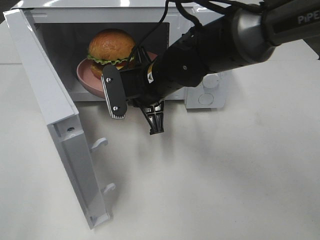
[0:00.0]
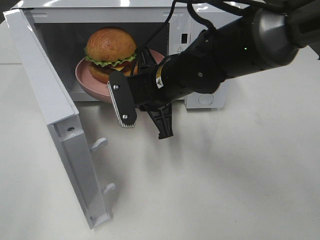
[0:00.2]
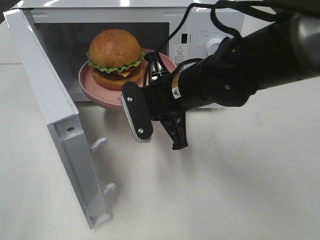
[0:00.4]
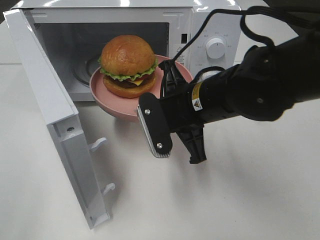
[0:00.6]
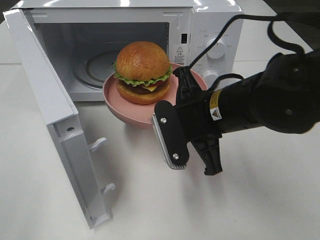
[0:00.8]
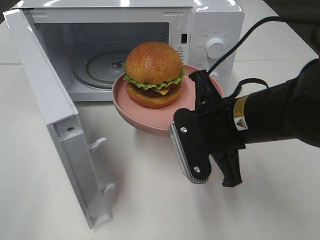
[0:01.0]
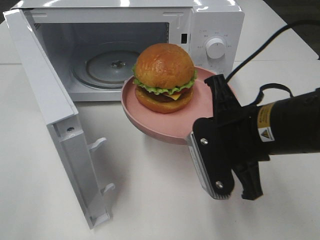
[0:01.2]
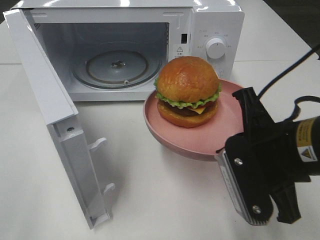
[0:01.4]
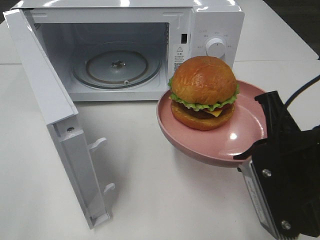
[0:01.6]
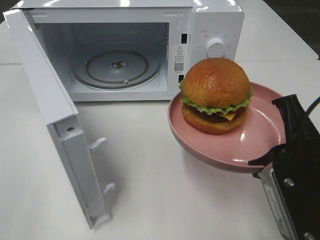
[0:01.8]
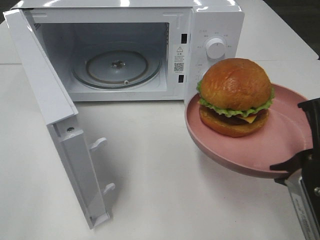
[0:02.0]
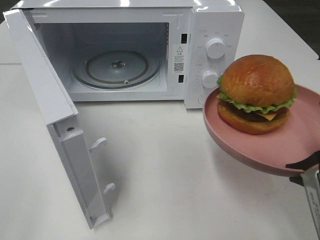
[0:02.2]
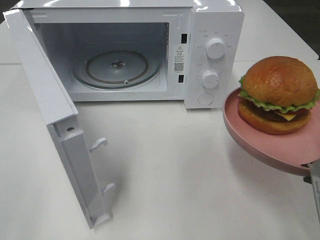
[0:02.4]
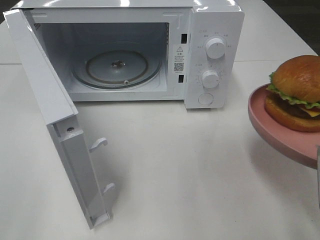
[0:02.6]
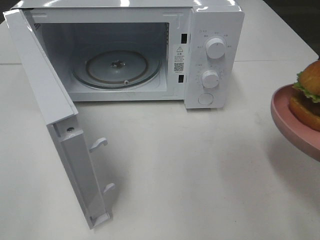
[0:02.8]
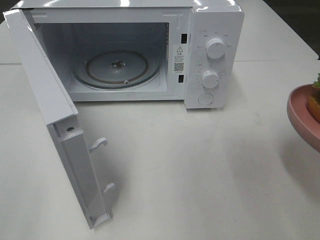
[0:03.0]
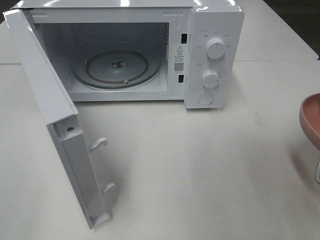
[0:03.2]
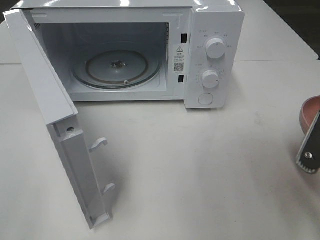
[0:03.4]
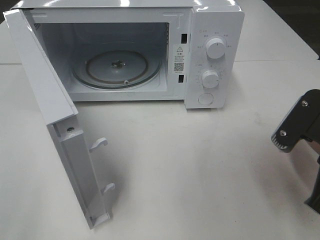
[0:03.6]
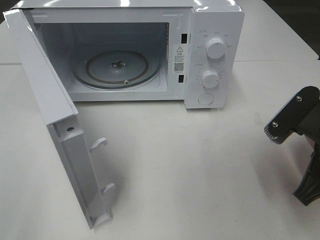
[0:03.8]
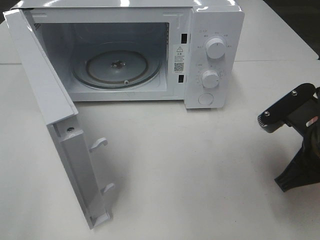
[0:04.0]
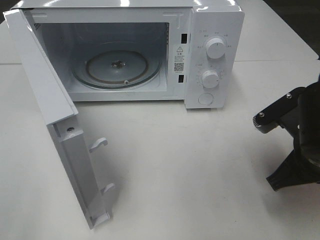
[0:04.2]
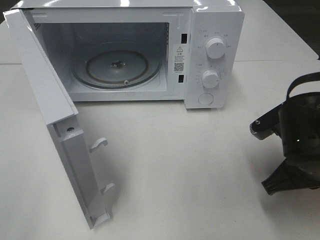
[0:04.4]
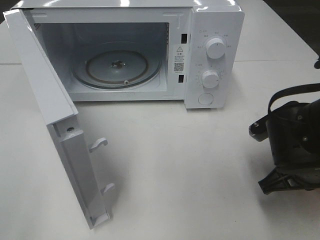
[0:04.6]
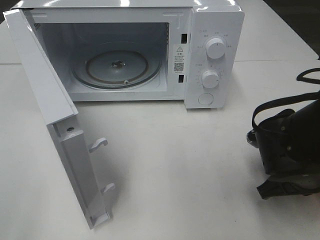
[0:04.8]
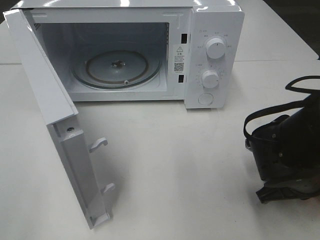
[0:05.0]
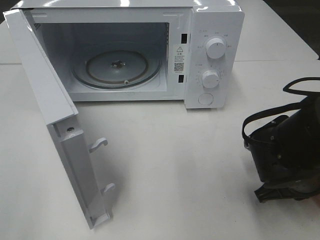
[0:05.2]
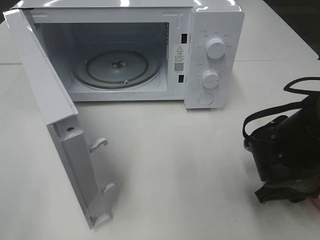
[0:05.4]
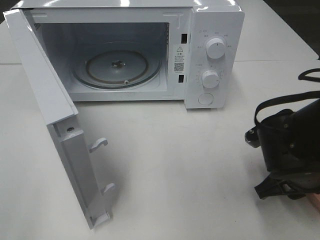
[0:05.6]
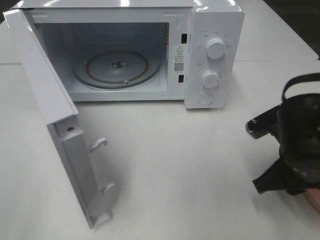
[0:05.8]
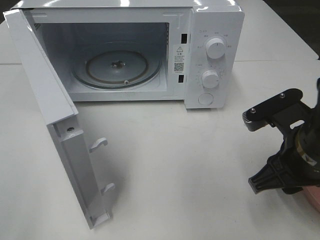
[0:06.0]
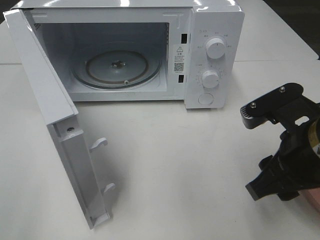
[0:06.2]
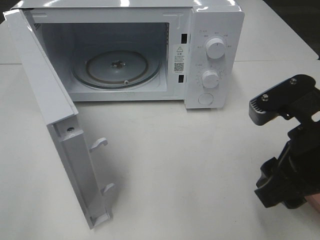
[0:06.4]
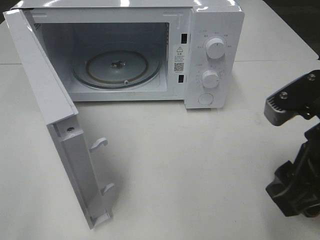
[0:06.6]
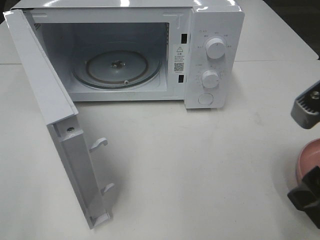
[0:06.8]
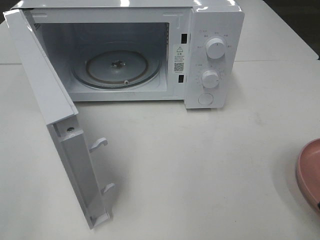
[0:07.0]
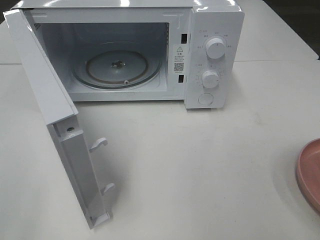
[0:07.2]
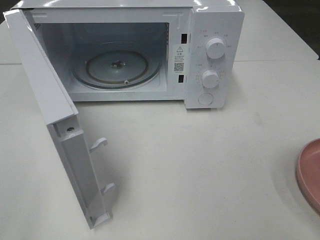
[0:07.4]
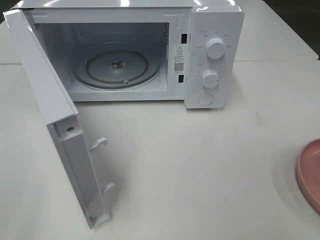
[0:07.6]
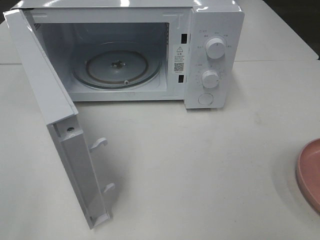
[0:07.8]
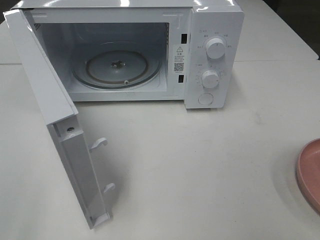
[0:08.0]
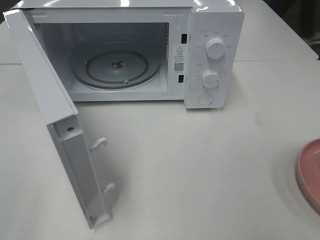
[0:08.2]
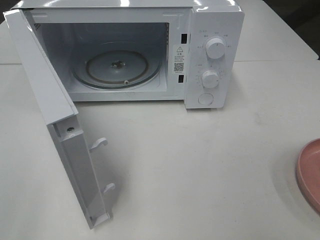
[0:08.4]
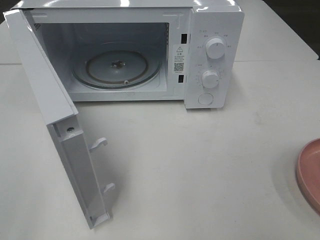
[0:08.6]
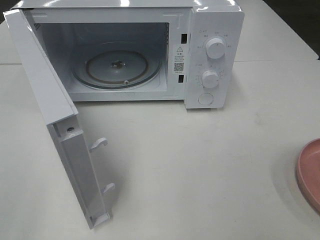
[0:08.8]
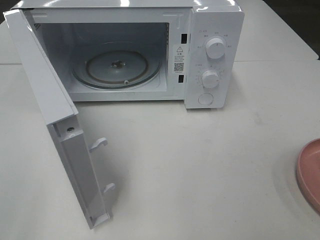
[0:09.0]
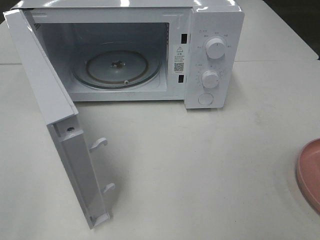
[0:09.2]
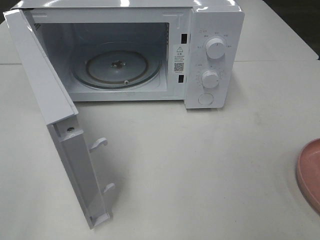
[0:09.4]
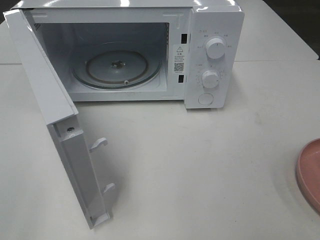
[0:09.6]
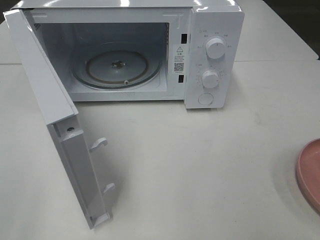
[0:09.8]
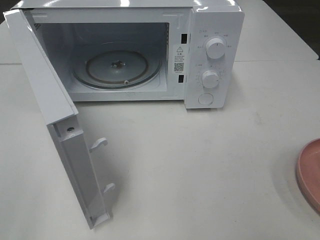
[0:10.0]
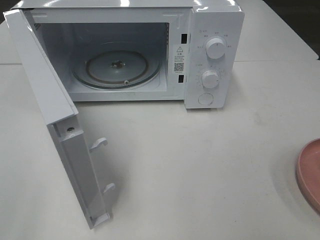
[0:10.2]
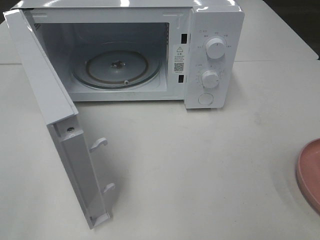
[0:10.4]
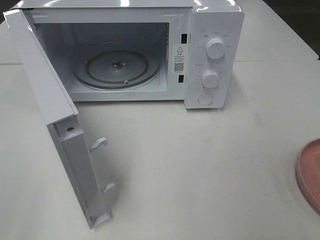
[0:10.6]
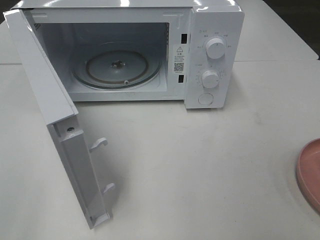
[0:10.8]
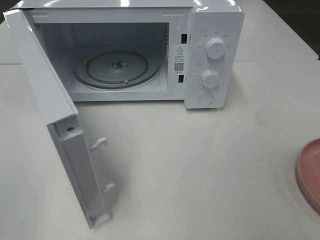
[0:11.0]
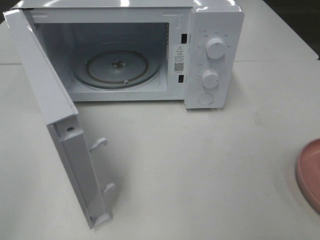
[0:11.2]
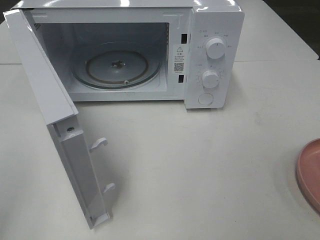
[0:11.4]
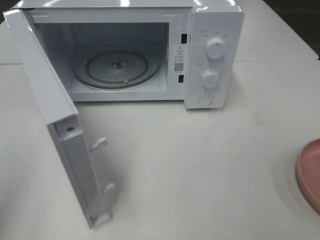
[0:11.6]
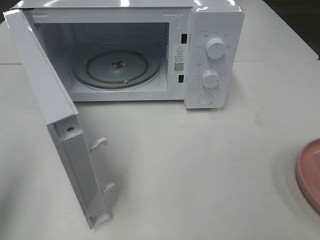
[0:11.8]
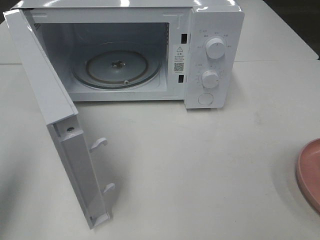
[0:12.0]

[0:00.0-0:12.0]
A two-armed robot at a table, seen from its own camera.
Task of the whole recording: Heat the burger.
Step, 0:00.0 to 0:05.6: Right hand: place the plate on the table.
0:00.0 to 0:01.6: The right gripper goes approximately 25 cm backward and to the right.
0:01.6 to 0:03.0: The right gripper heads to the right, covering about 5 cm.
0:03.0 to 0:04.4: The right gripper heads forward, downward and to the left, covering some 15 cm.
0:04.4 to 0:06.0: The right gripper opens its fingers.
0:06.0 to 0:07.6: The right gripper goes approximately 20 cm backward, upward and to the right.
0:09.0 to 0:10.4: Both grippers stay put.
0:10.4 to 0:12.0: The left gripper heads forward, covering roughly 15 cm, and closes up.

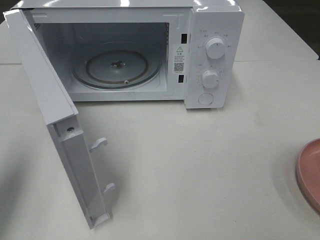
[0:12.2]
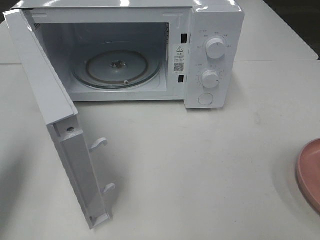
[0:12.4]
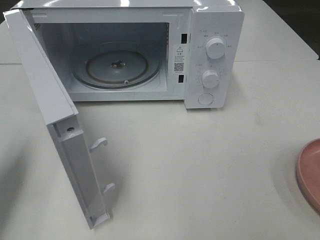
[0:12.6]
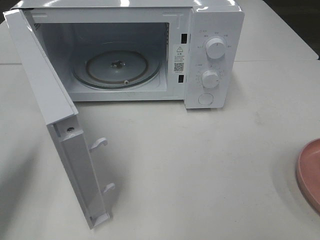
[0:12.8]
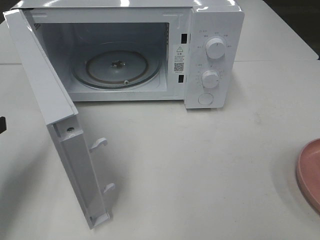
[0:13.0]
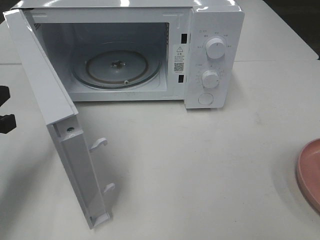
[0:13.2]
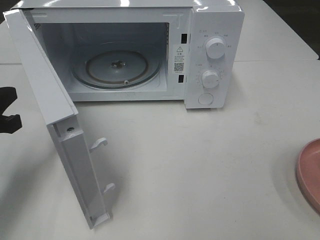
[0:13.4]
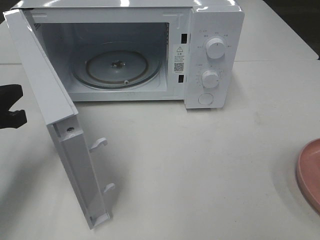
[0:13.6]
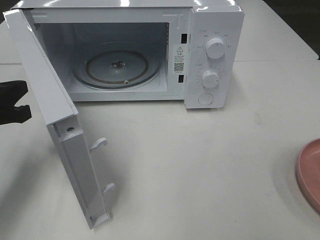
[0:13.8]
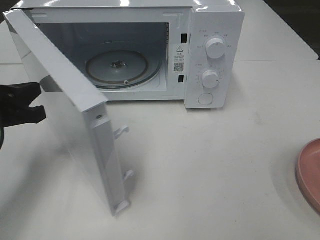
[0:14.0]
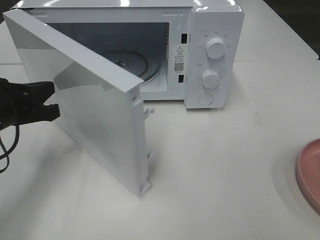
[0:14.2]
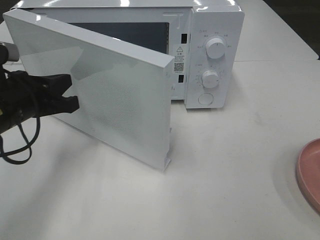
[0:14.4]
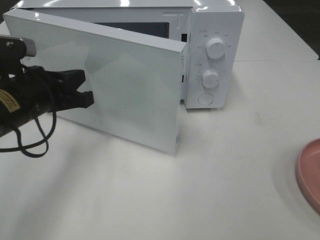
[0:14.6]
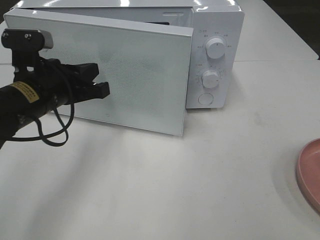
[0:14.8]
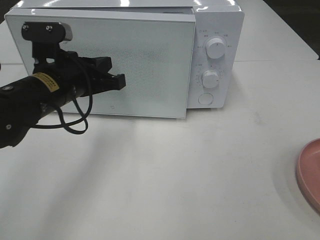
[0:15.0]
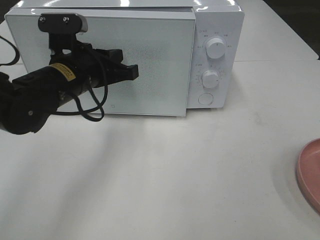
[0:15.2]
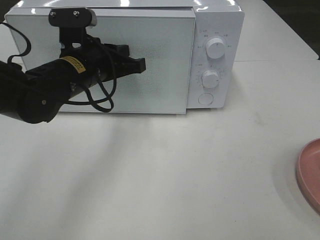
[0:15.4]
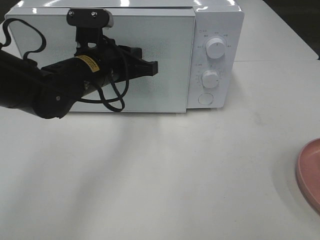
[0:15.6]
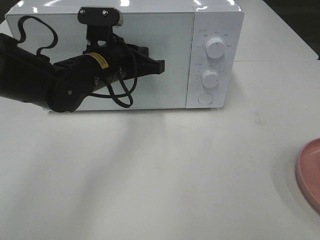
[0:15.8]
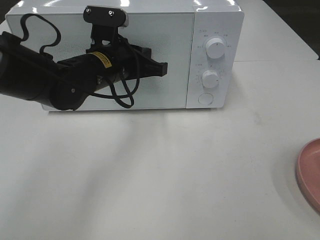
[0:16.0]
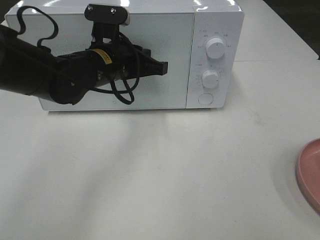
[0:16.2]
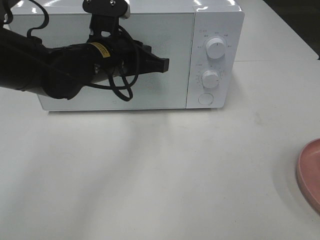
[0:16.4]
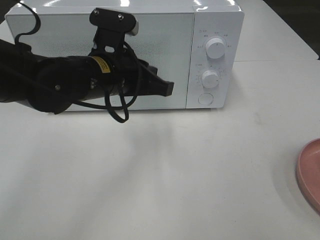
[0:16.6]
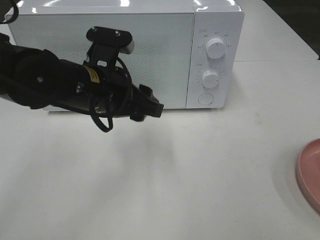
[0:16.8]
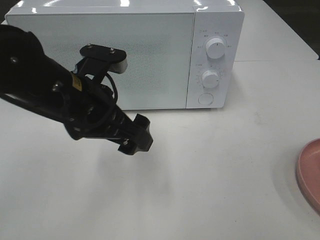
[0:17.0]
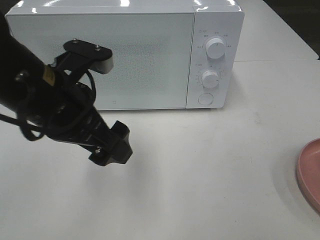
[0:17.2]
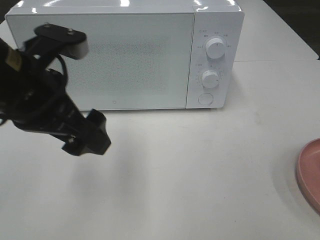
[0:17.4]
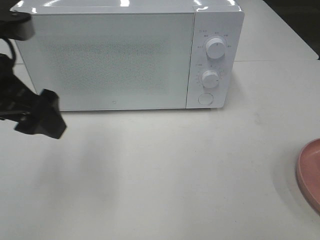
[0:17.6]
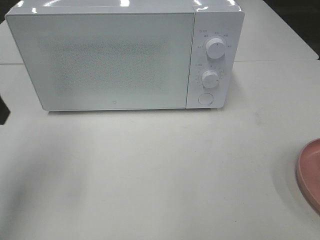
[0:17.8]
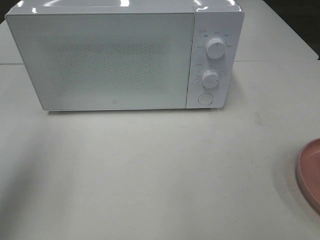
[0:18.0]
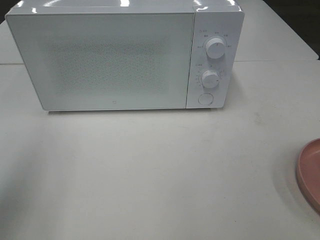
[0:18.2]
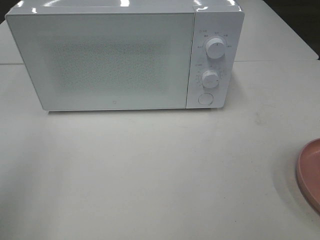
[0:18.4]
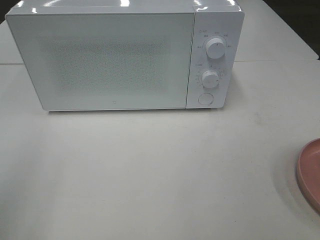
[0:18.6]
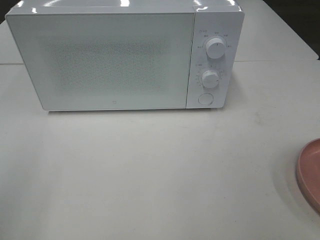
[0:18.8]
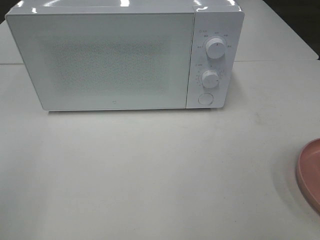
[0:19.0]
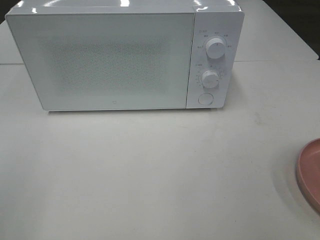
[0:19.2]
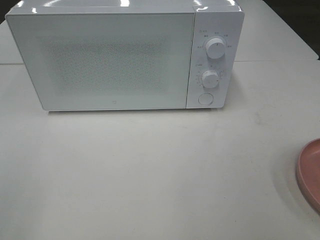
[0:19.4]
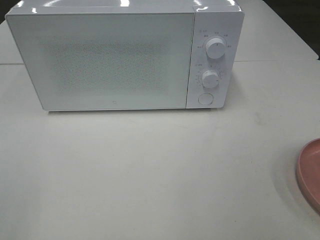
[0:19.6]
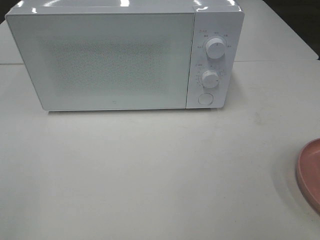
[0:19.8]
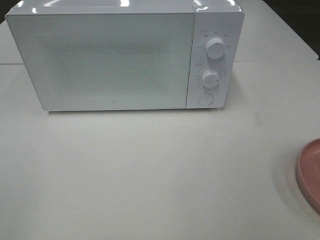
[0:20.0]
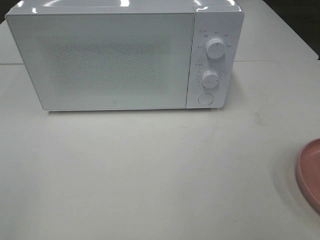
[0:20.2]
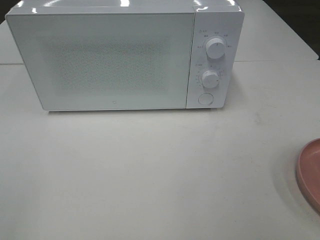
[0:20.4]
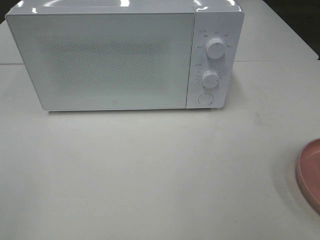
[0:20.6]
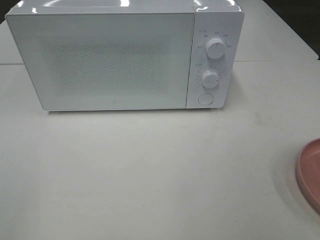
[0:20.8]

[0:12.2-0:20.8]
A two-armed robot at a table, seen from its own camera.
Task of the whole recording: Heat the burger.
Step, 0:12.2 to 0:16.4: Left hand: close the microwave door.
0:12.2 to 0:13.6: The left gripper shifts roughly 15 cm downward and forward.
0:13.6 to 0:15.0: The left gripper goes about 15 cm to the right and forward.
0:15.0 to 0:16.6: The left gripper travels to the right by roughly 5 cm.
0:16.6 to 0:18.0: The left gripper travels to the left, upward and backward by approximately 25 cm, and opens.
0:18.0 to 0:19.4: The left gripper is displaced backward by some 15 cm.

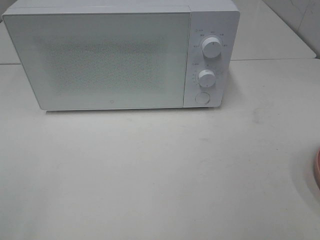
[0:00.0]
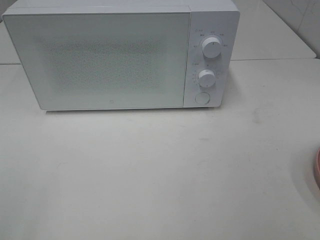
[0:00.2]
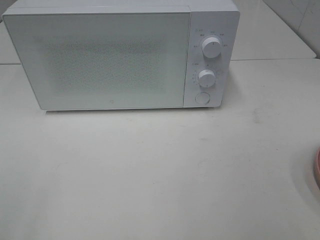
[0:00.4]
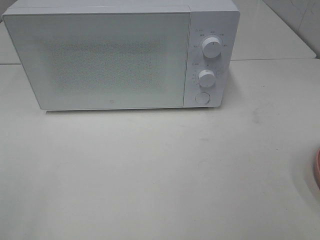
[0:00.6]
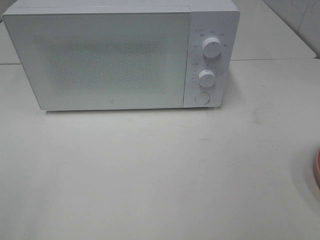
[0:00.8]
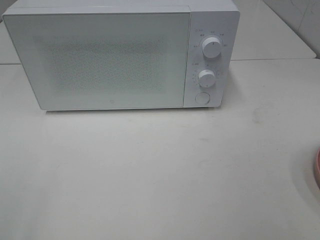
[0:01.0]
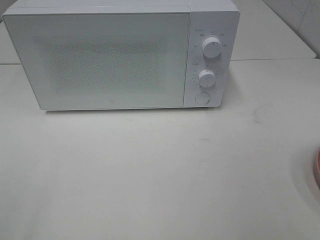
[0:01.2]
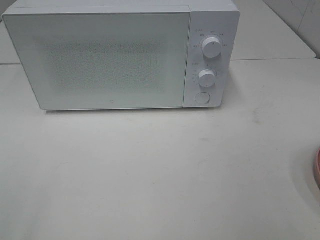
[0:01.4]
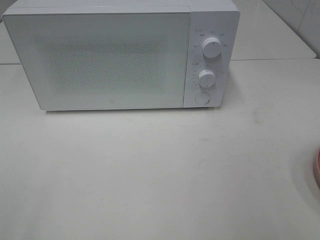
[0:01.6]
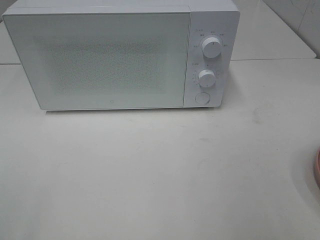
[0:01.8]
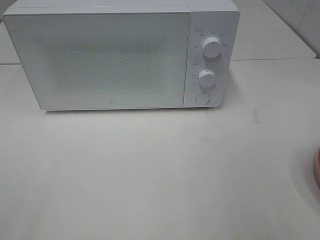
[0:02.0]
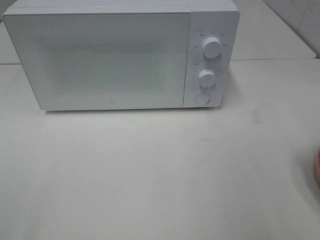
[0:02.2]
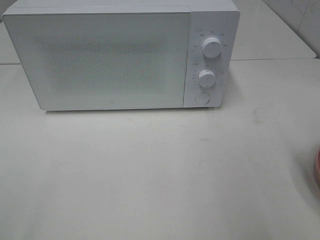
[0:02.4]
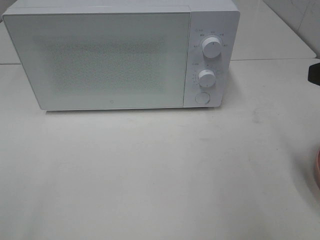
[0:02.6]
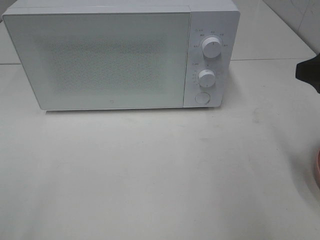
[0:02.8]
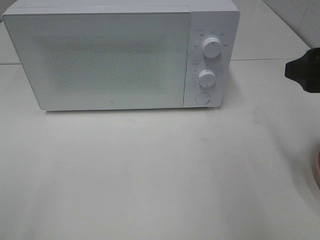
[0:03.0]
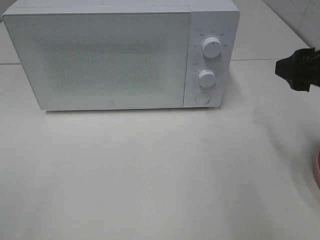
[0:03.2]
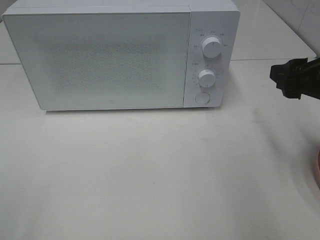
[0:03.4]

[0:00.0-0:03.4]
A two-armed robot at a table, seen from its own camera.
Task of the whole recording: Heat the burger.
0:01.6 to 0:03.4: The right gripper goes approximately 15 cm forward and downward.
